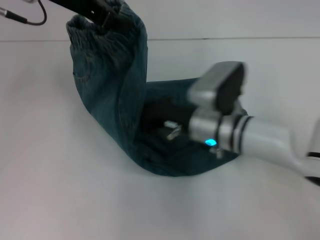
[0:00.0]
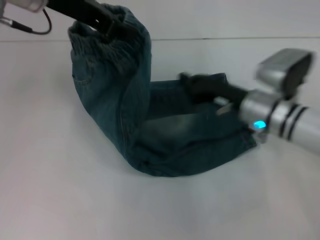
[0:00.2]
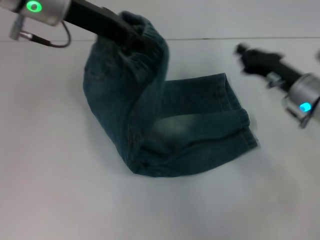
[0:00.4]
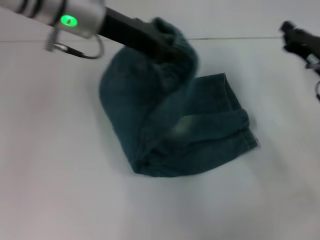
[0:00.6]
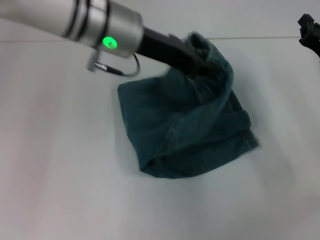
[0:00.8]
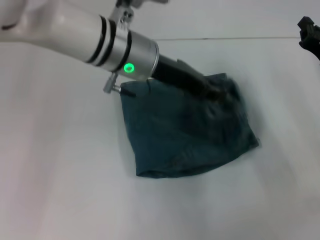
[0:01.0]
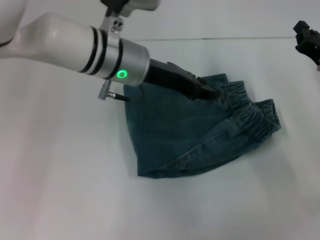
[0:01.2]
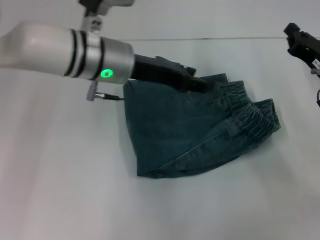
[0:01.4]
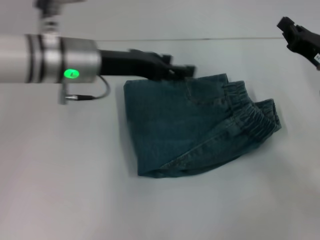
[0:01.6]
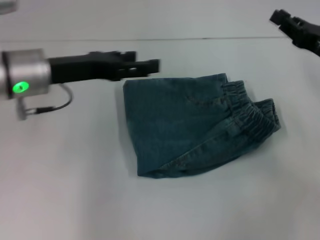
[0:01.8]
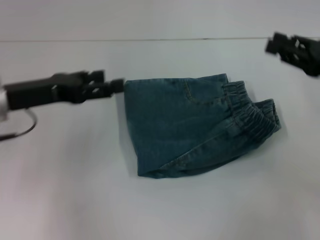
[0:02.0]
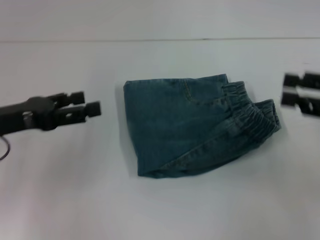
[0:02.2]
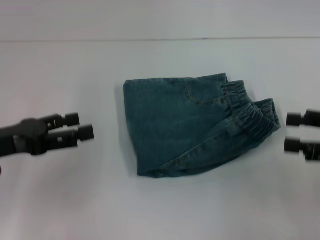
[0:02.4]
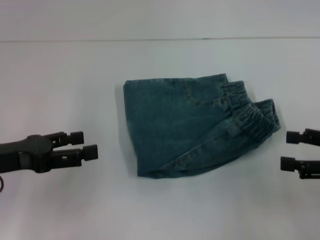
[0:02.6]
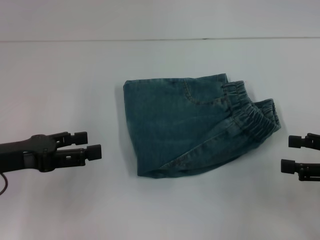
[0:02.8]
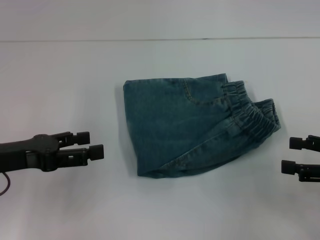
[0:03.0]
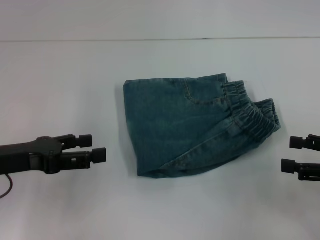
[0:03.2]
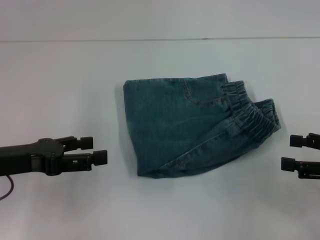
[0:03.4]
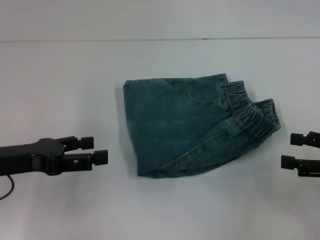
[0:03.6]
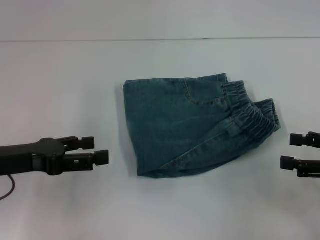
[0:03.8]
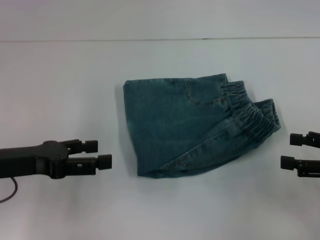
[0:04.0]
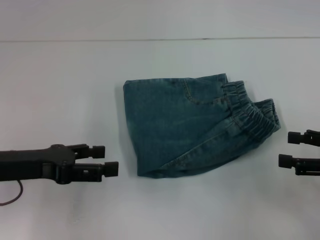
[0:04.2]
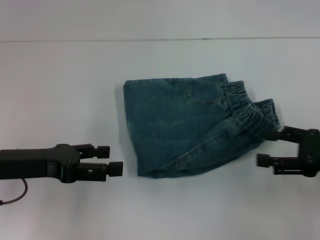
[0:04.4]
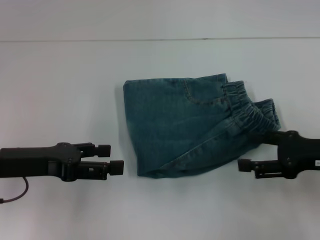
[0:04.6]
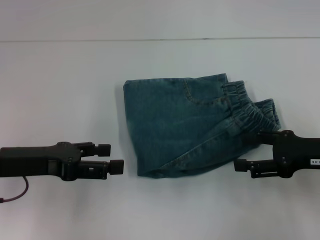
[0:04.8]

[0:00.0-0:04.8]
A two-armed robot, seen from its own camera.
Step, 0:00.2 to 0:01.6: Fold to the right with your left hand.
0:00.0 to 0:01.6: The right gripper moves to the right, about 20 cm. The left gripper heads downward, covering some 10 cm, and opens its fingers.
0:01.6 to 0:03.2: The left gripper heads to the left, backward and downward, covering about 20 cm. Meanwhile the right gripper moves backward and to the right, some 15 cm, and opens up.
0:03.2 to 0:04.8: The right gripper moves to the left, some 5 cm.

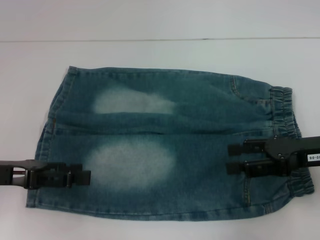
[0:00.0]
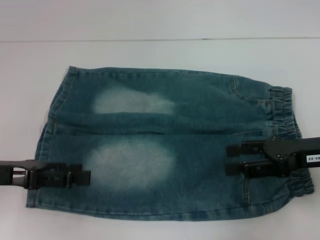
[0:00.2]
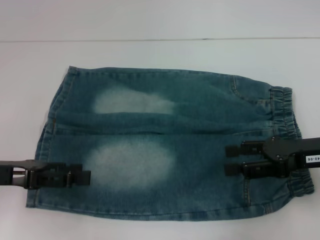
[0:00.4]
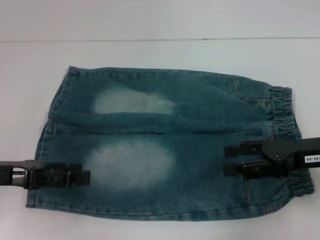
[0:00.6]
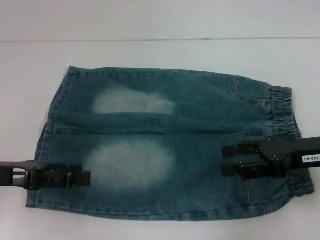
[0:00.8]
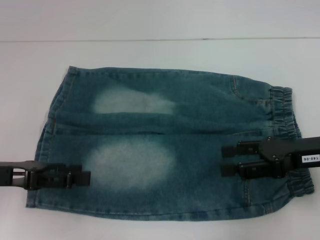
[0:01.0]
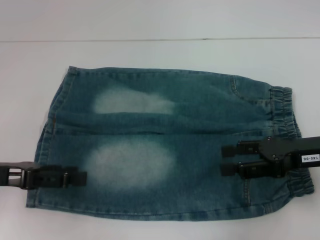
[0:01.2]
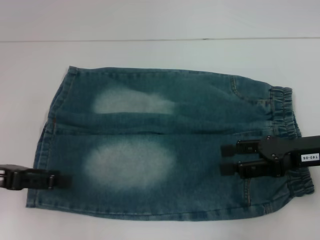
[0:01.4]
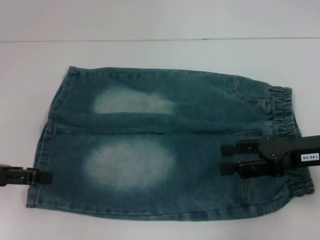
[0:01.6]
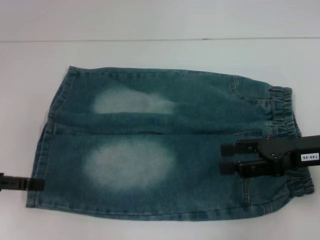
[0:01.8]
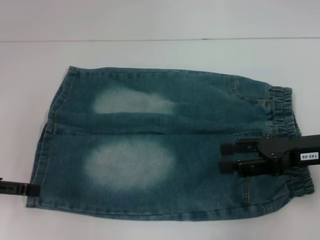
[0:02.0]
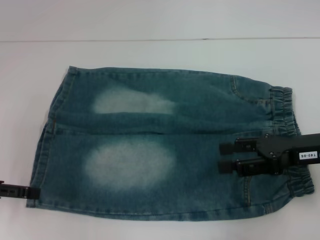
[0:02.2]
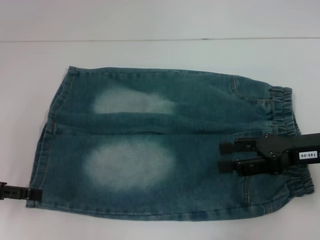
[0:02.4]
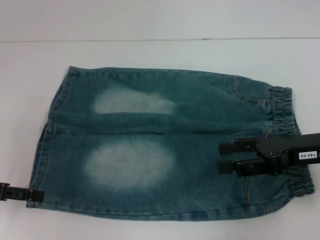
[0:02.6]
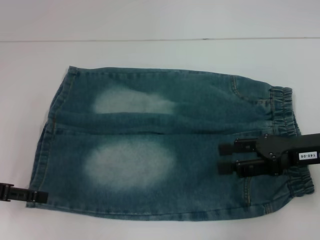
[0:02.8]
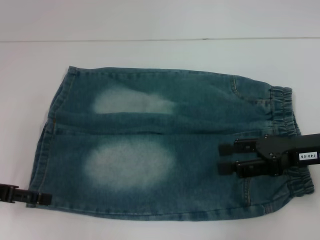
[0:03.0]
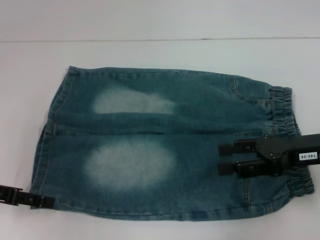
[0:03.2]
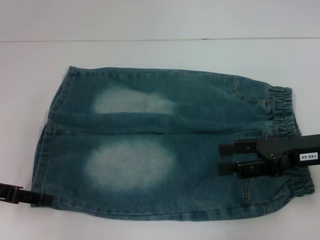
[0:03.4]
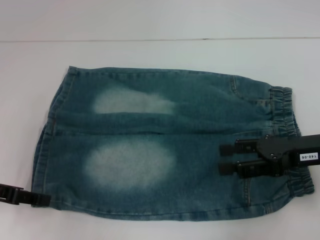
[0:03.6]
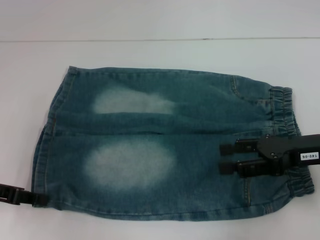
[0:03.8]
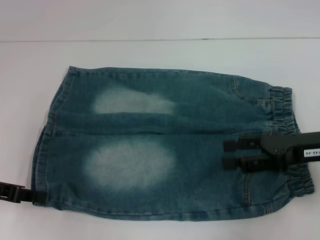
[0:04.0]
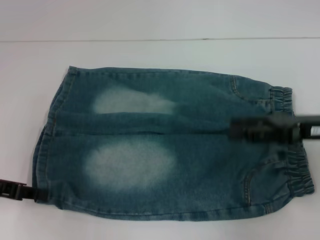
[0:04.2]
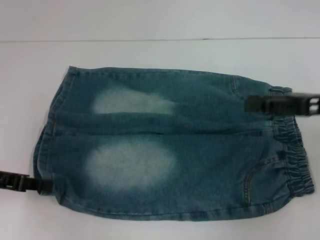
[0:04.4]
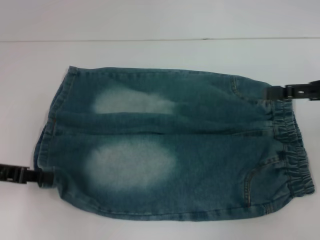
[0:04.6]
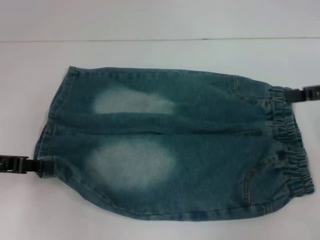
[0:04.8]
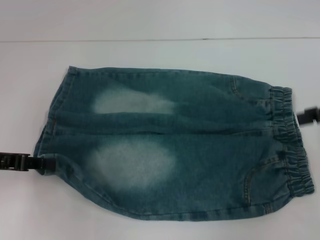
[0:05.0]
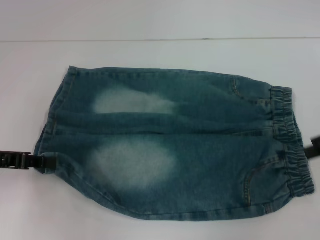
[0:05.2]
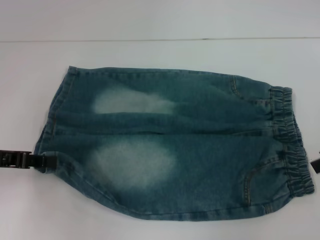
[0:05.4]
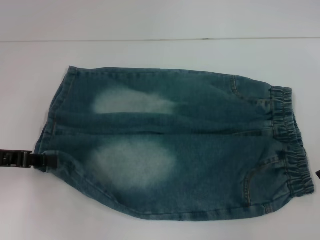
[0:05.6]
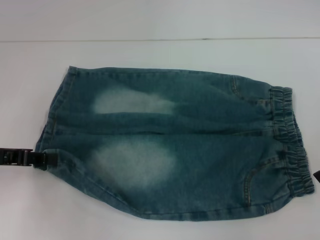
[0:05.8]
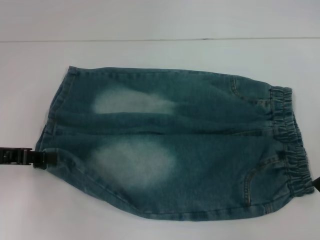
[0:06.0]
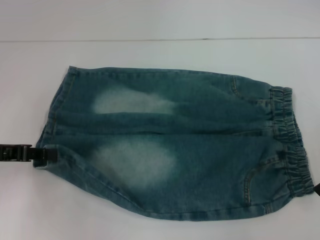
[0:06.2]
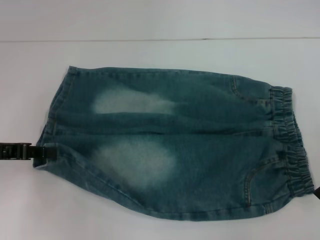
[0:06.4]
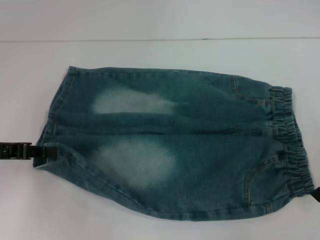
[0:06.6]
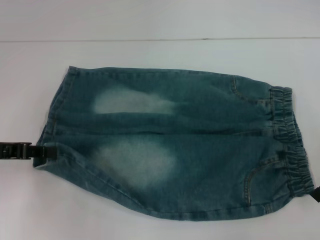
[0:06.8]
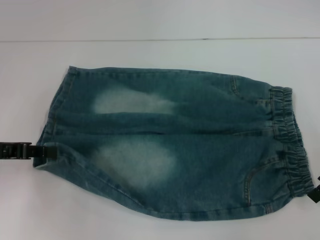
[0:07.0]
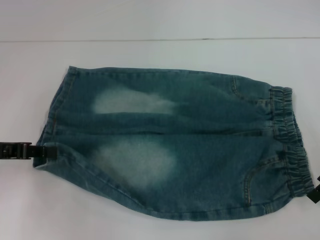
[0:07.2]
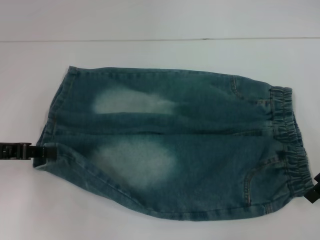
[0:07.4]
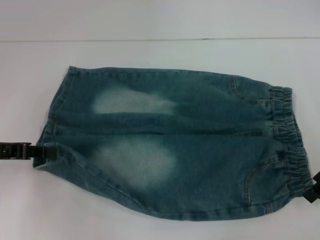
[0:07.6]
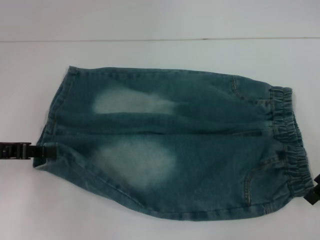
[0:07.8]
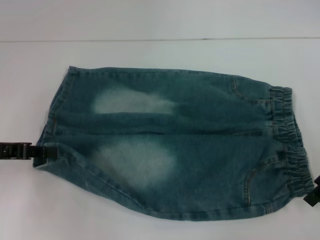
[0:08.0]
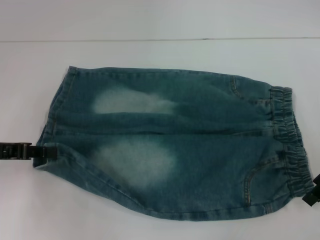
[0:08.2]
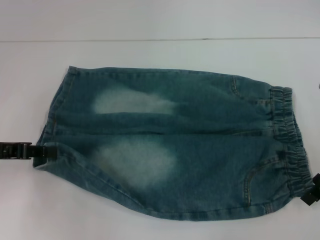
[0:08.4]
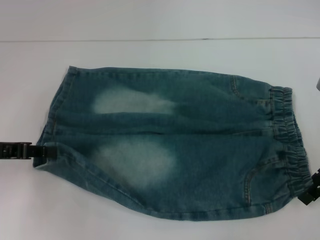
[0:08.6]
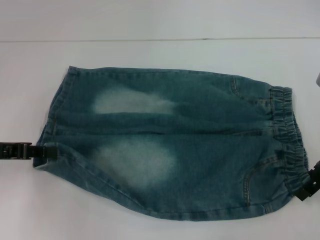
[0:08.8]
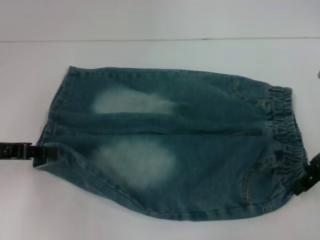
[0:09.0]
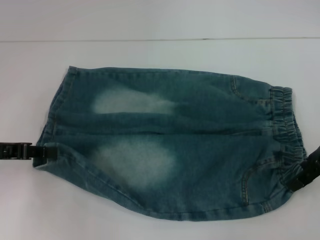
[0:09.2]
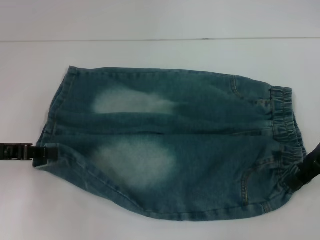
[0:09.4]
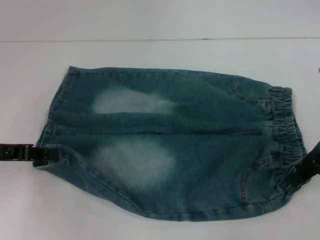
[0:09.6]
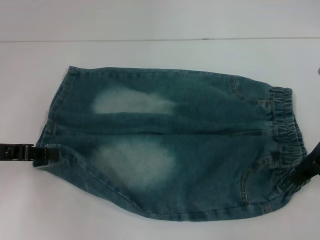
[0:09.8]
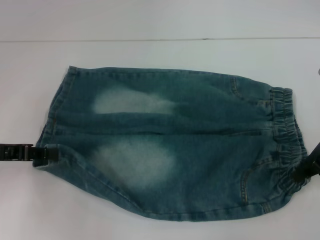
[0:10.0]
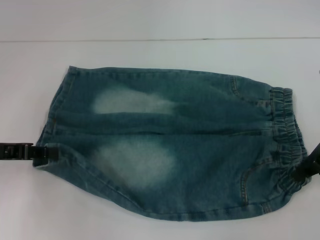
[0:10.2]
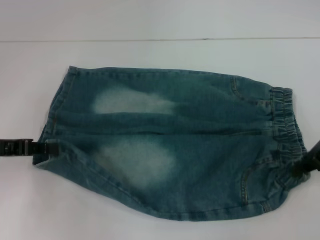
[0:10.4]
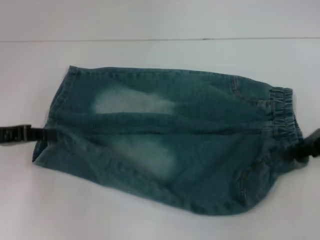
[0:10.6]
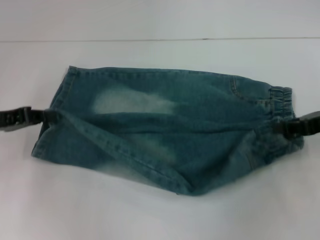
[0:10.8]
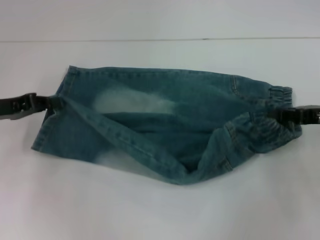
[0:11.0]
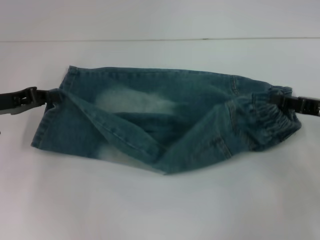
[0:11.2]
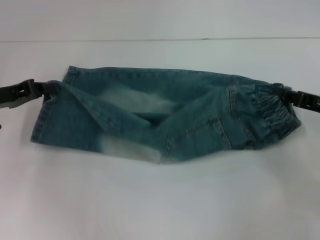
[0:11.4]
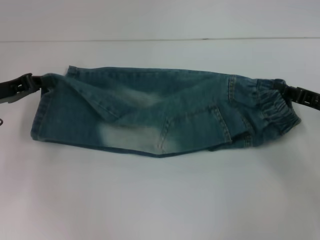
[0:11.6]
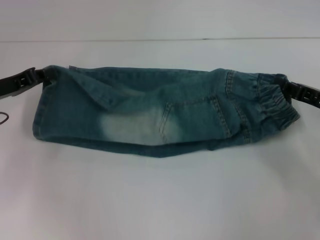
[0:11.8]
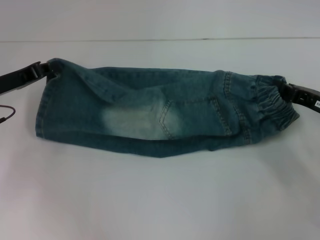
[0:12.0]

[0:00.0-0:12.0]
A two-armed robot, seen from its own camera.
Step, 0:00.0 to 0:03.6: Grab the lower left pant leg with your left hand.
Step, 0:04.0 to 0:08.6: Hold the lower right waistband with your right hand.
0:00.0 to 0:01.6: The grippers make only small movements.
0:01.6 to 0:03.0: The grippers stay close to where they were, moving slightly.
0:03.0 to 0:04.4: The right gripper shifts by approximately 5 cm, while the left gripper closes up.
0:06.0 to 0:07.6: The grippers stay close to where they were, moving slightly.
0:07.6 to 0:09.0: Both grippers stay put.
0:09.0 to 0:10.4: The right gripper closes up.
0:10.4 to 0:12.0: The left gripper is displaced forward by about 5 cm; the right gripper goes about 10 cm downward.

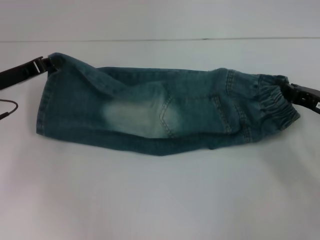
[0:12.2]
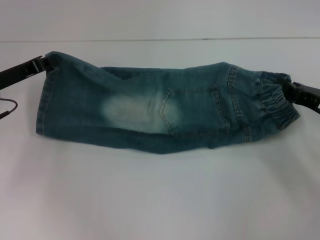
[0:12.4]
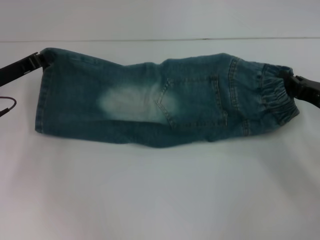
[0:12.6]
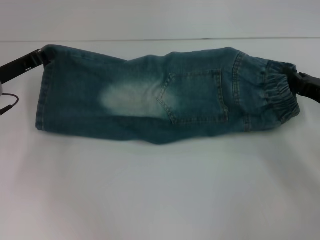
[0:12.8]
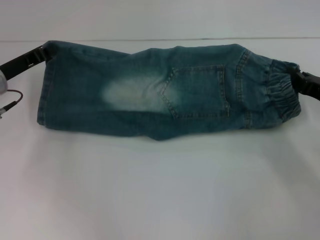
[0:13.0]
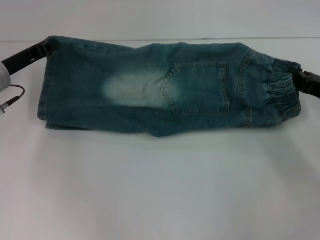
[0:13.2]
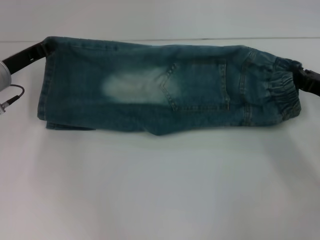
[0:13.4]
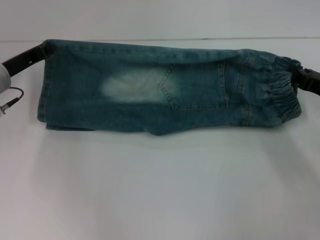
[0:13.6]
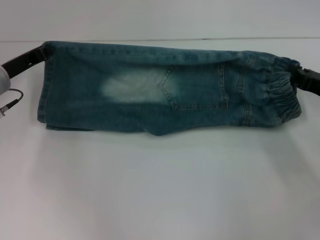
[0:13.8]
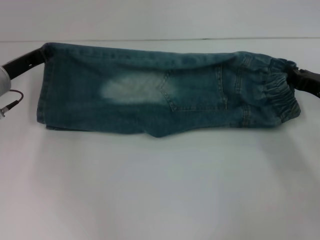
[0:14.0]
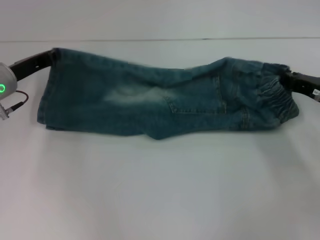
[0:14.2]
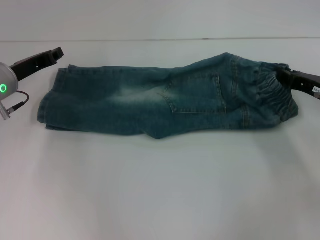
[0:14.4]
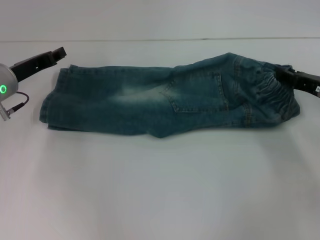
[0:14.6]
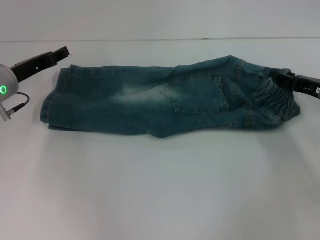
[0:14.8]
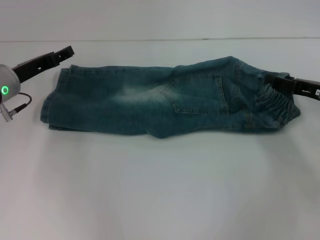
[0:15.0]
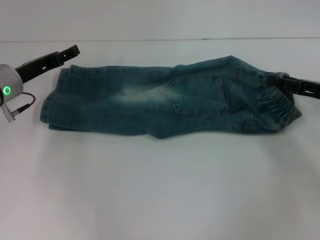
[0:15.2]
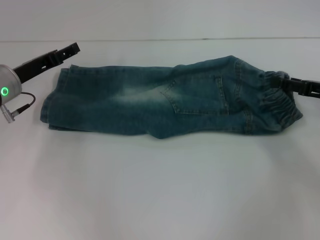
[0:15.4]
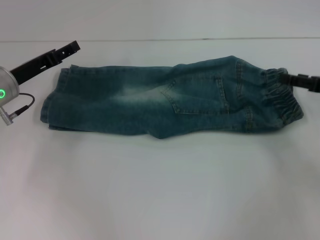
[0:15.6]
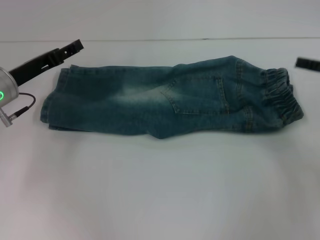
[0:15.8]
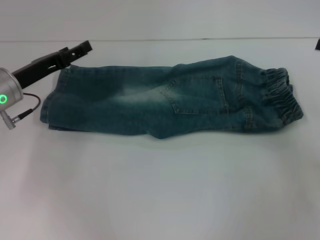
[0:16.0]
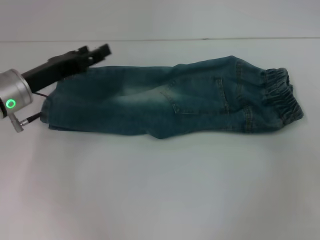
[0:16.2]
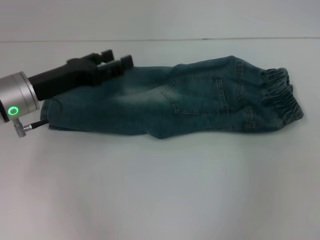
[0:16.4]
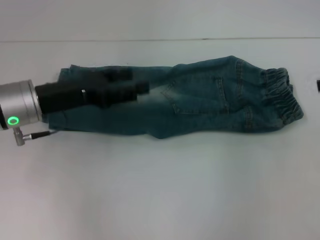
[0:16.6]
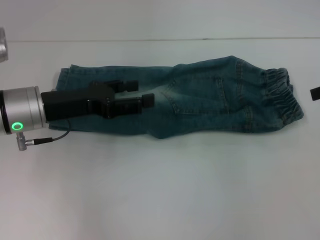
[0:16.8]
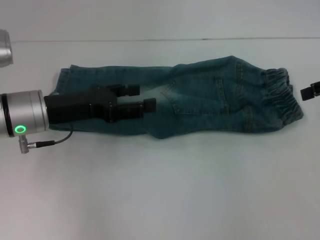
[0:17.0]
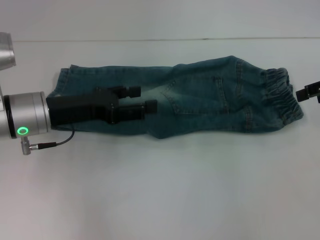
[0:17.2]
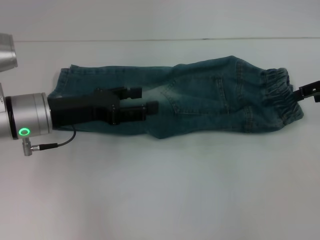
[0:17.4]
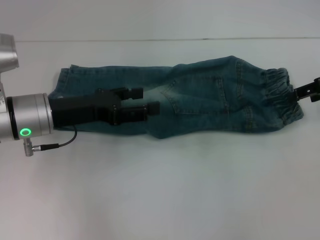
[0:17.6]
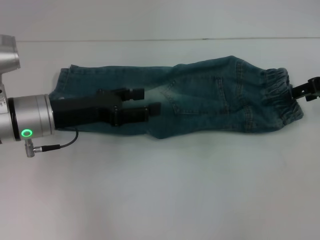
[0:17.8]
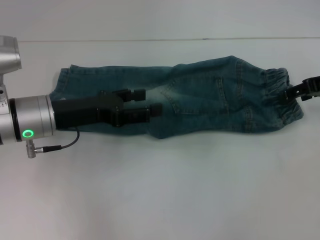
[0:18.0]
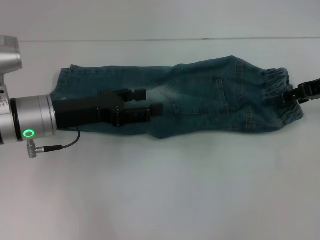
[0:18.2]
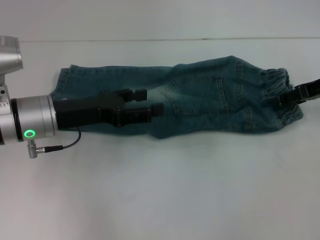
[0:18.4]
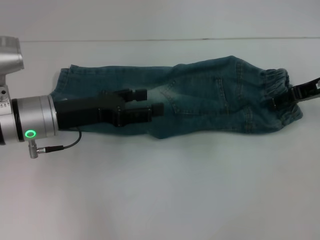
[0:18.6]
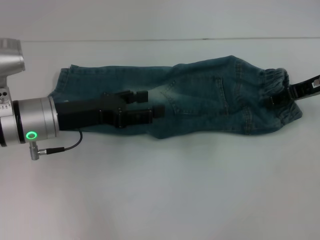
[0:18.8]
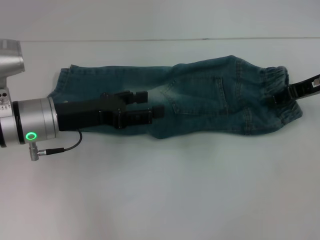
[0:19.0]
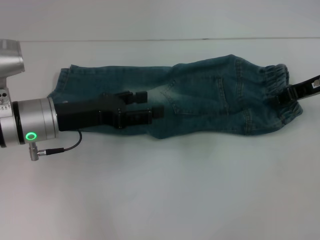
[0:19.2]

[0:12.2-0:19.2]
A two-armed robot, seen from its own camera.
Step, 0:12.2 to 0:15.4: Fold upward with your right hand.
Step, 0:15.8 to 0:19.0: Grab the waistband with your right hand.
0:13.6 to 0:15.0: The left gripper opens up, while the right gripper opens.
0:15.0 to 0:16.4: The left gripper moves approximately 5 cm. The right gripper shifts about 15 cm upward and to the right.
0:16.4 to 0:17.8: The right gripper heads to the left and forward, covering approximately 10 cm.
0:17.8 to 0:19.2: The right gripper closes up.
